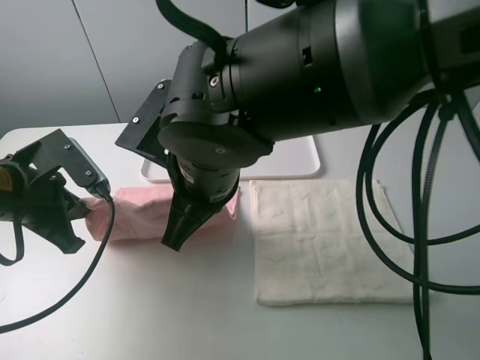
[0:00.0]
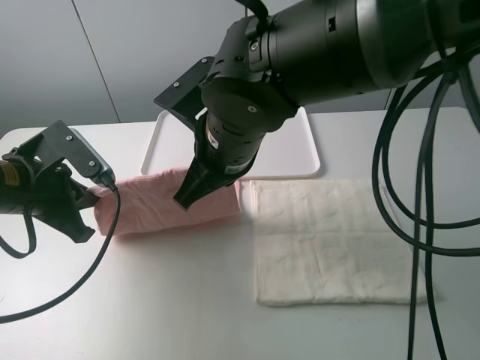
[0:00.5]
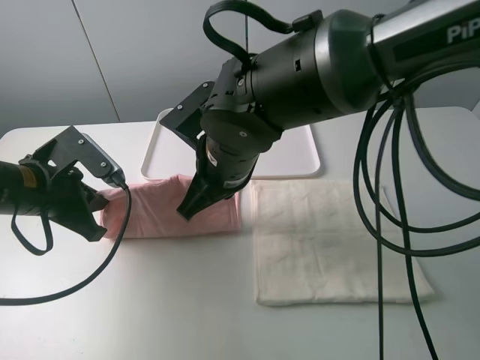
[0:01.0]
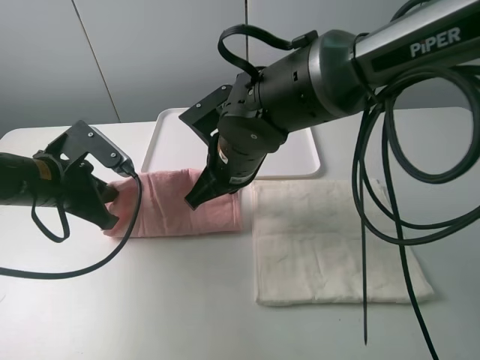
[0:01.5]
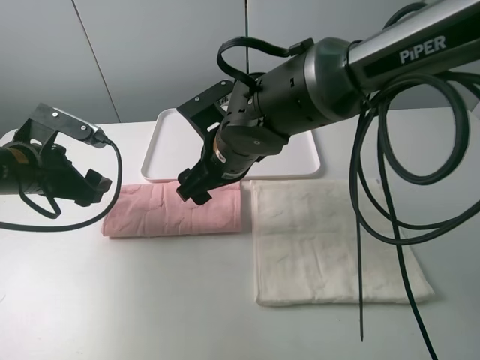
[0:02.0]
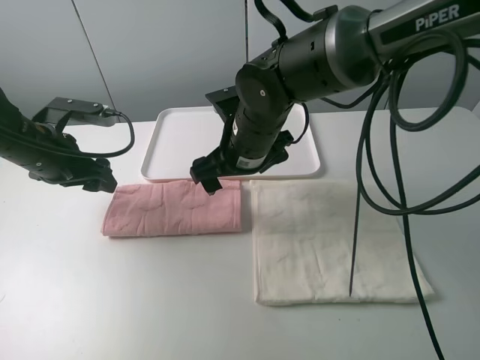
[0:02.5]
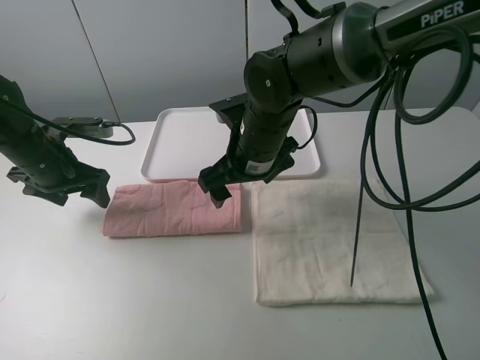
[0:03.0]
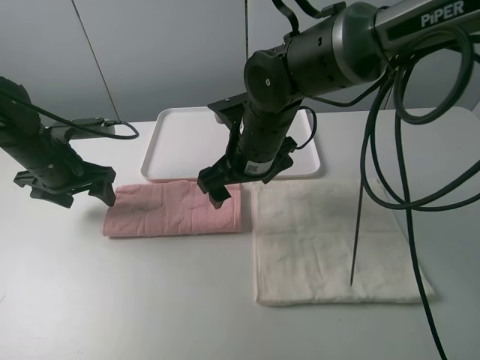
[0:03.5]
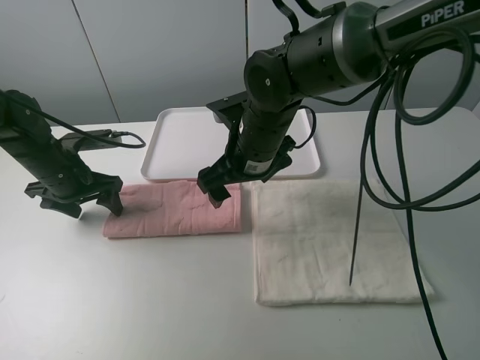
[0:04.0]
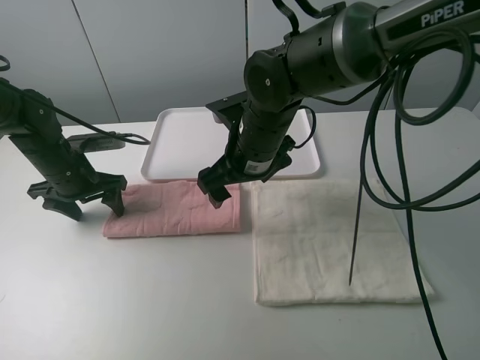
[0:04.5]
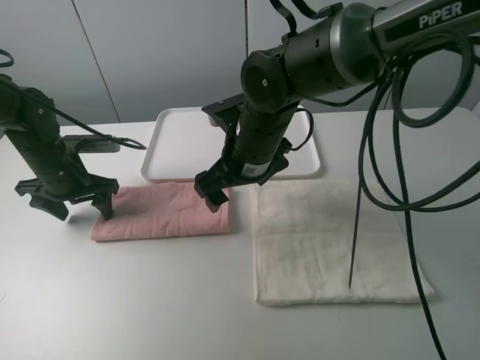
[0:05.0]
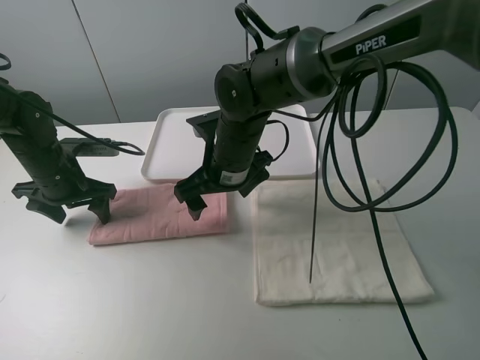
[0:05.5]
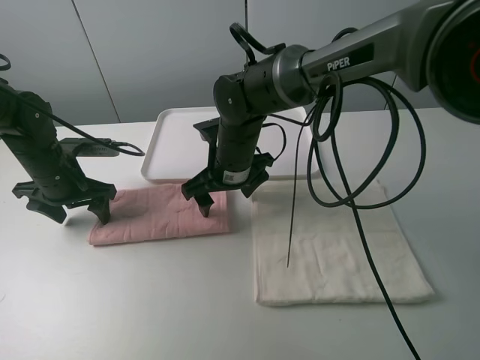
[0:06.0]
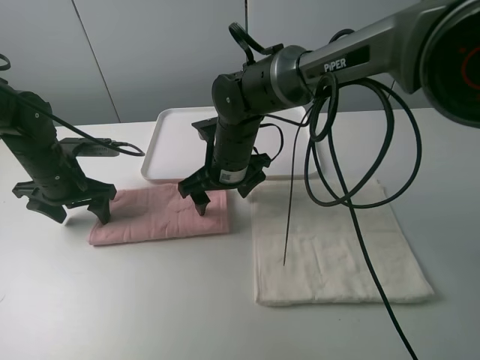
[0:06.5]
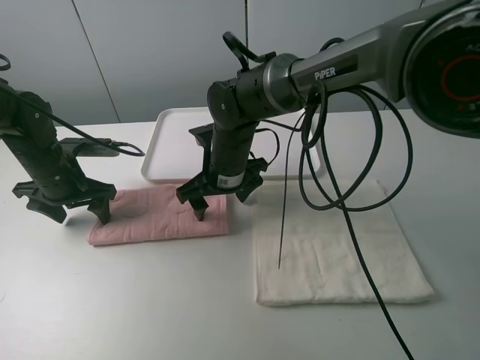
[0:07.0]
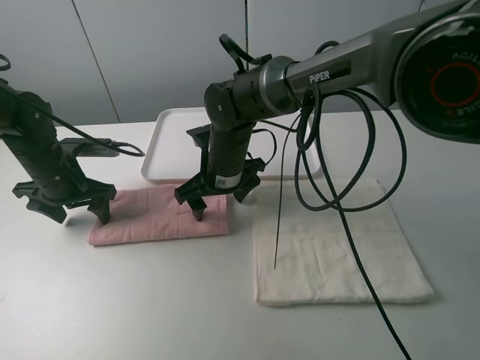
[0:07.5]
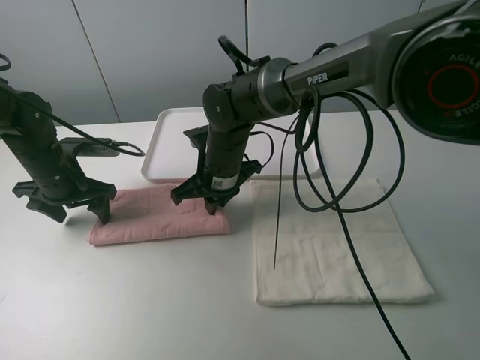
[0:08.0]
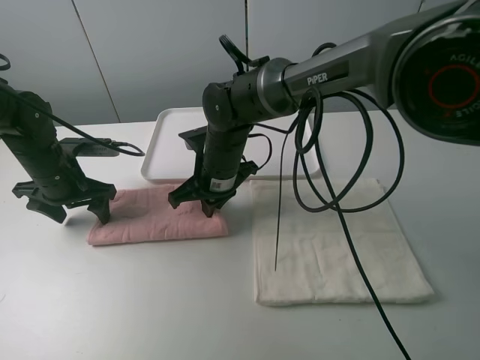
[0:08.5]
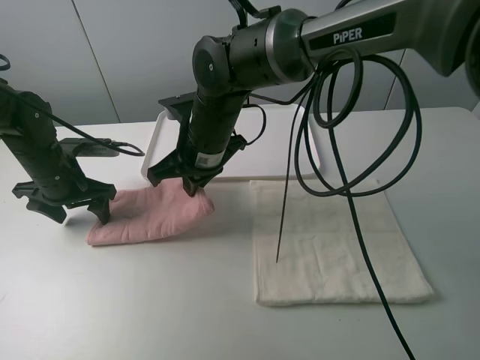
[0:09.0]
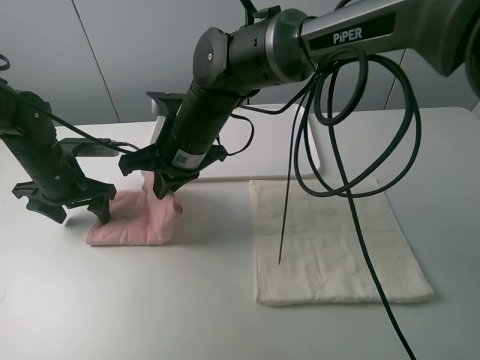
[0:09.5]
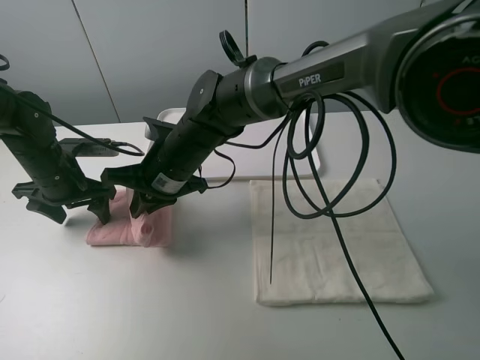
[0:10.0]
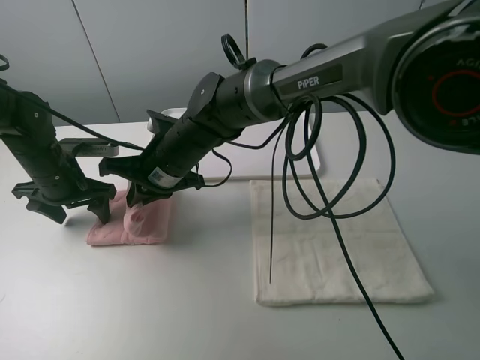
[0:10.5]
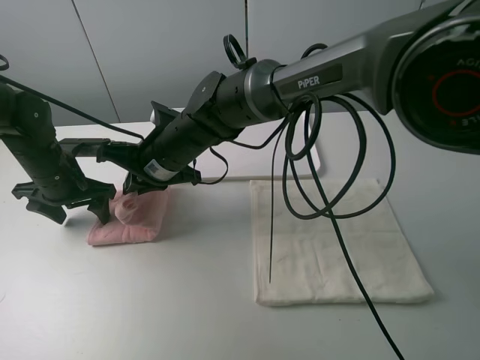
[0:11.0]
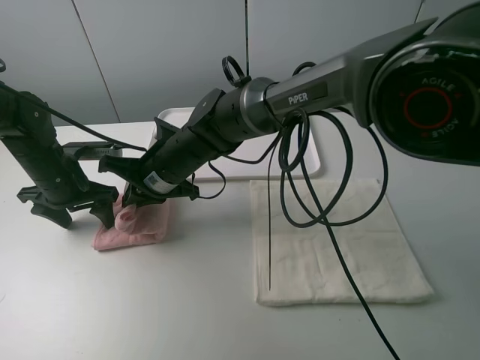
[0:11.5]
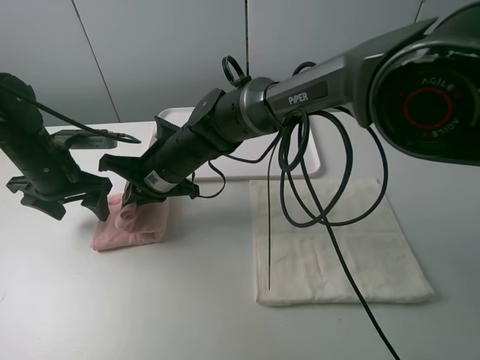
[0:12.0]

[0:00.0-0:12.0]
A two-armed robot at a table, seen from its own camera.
Task of the whole recording: fold one of the towels by two grippers and place it on the tray,then fold another towel by two grippers and place it on the folded towel.
Step, 0.0 to 2.0 s: Fold the pink towel upwards with the left gripper.
Step, 2.5 to 4.5 s: Press the pink towel with the left gripper.
Step, 5.0 to 8.0 s: Grasp the pink towel with the right gripper.
0.0 to 2.0 s: The right gripper goes about 10 cm forward and downward, and opens its fingers; the left gripper heads forward, covering approximately 5 cm, and opens up.
2.0 to 4.0 s: The left gripper moves forward, roughly 5 cm.
4.0 to 6.0 s: The right gripper moves approximately 5 cm.
6.0 to 8.0 s: The right gripper closes.
8.0 to 10.0 s: The right gripper is displaced to the left by about 5 cm.

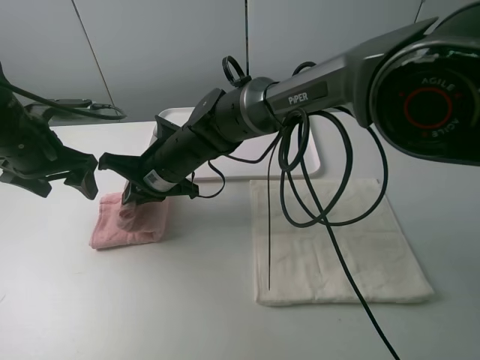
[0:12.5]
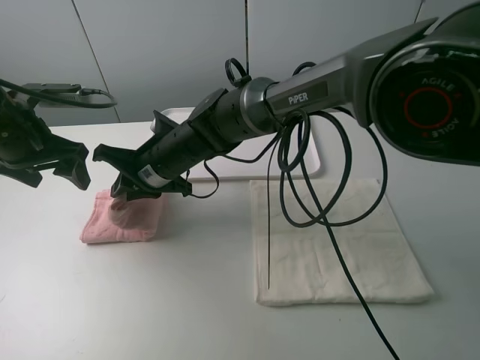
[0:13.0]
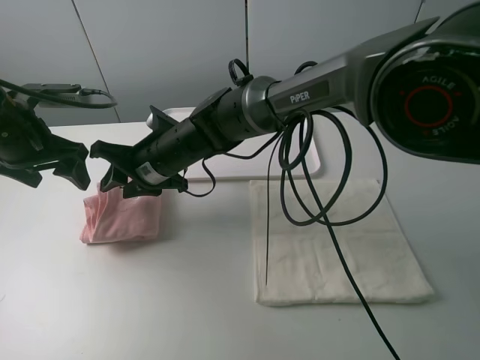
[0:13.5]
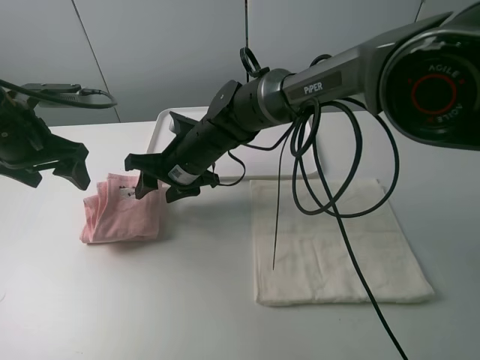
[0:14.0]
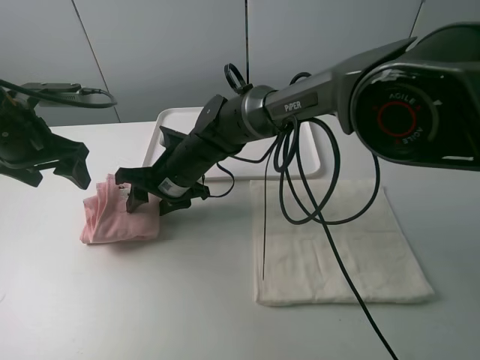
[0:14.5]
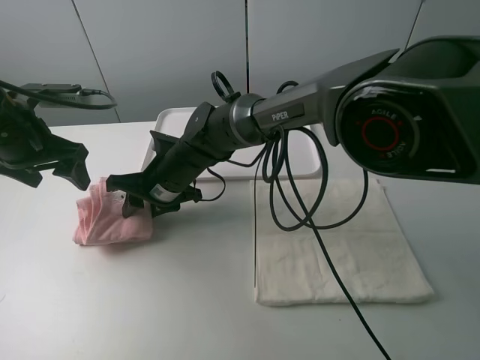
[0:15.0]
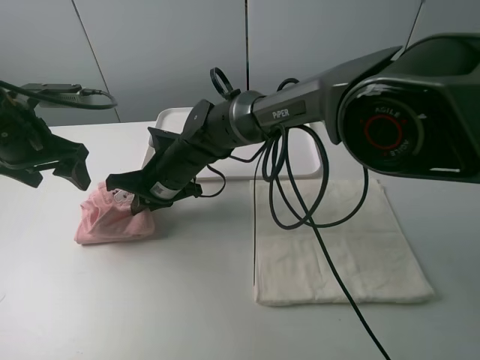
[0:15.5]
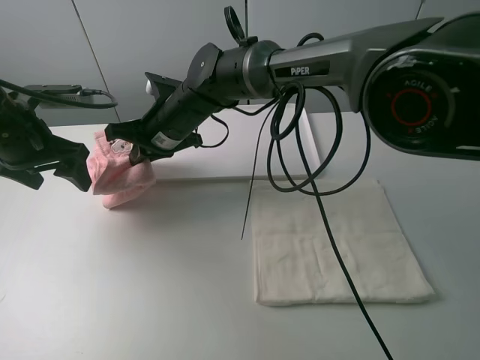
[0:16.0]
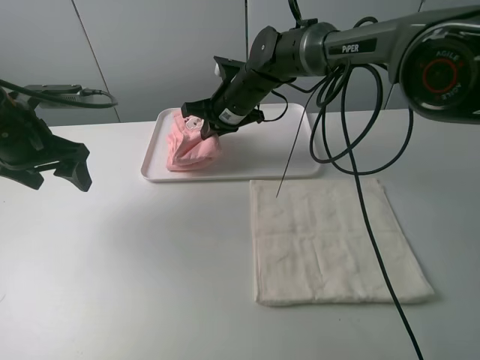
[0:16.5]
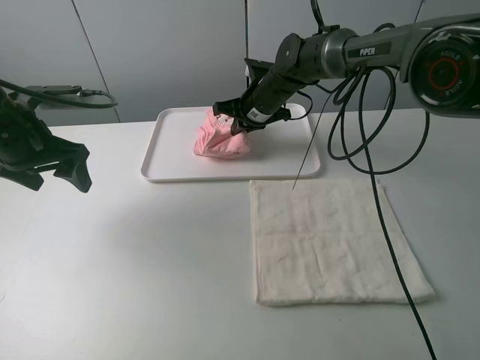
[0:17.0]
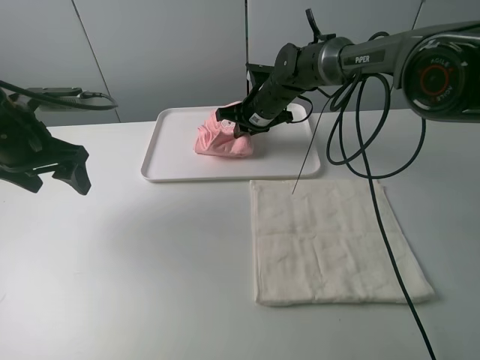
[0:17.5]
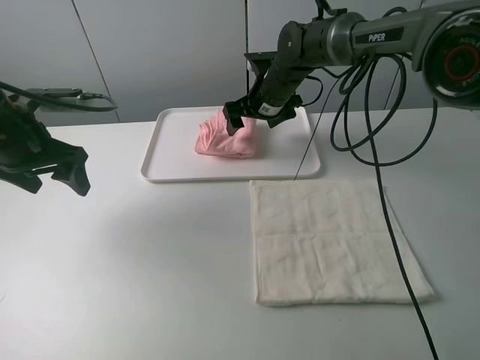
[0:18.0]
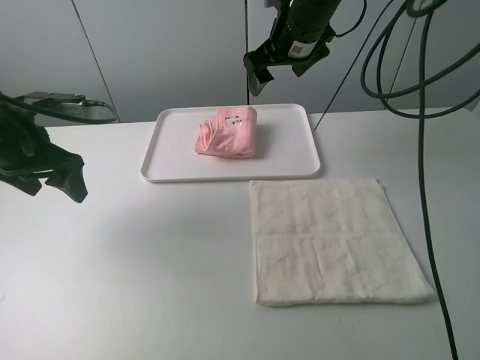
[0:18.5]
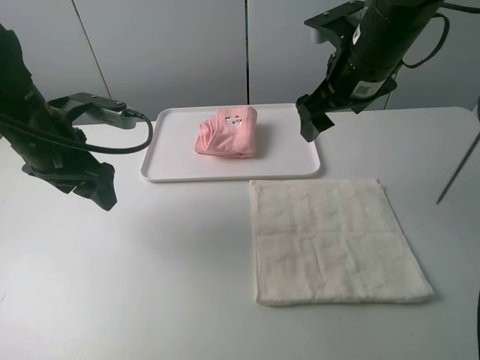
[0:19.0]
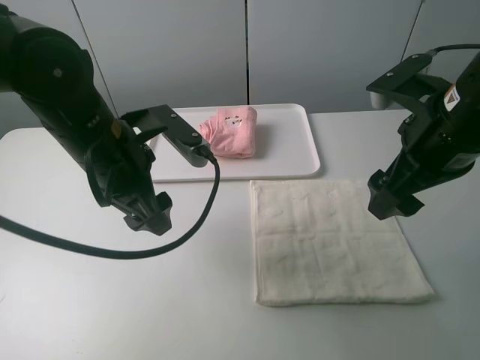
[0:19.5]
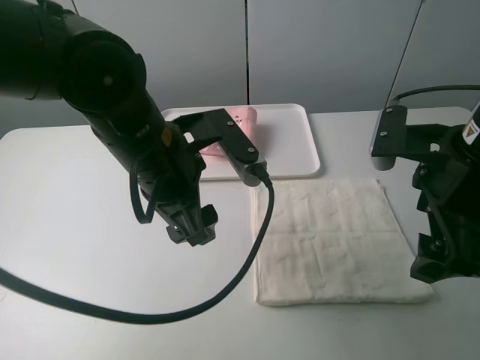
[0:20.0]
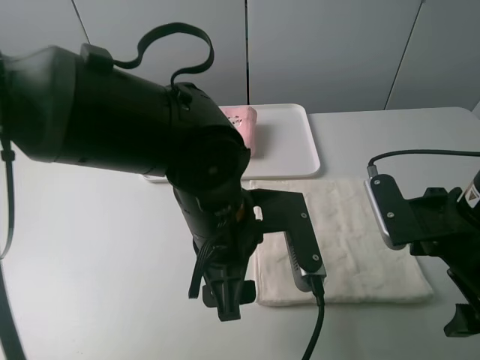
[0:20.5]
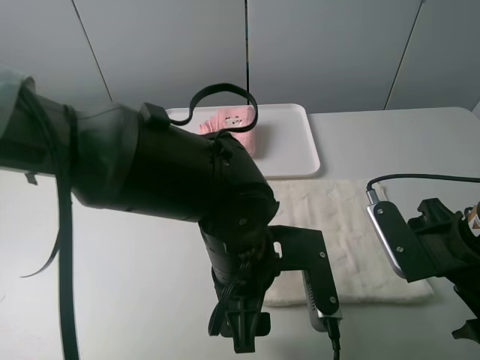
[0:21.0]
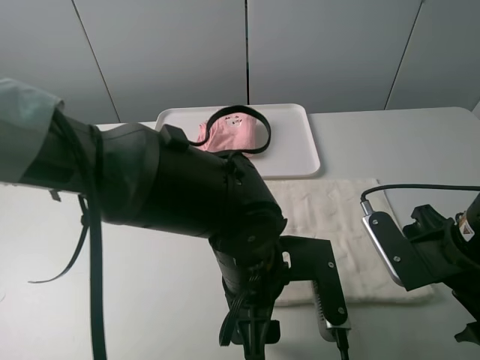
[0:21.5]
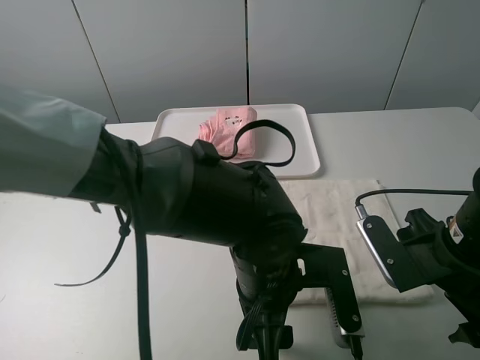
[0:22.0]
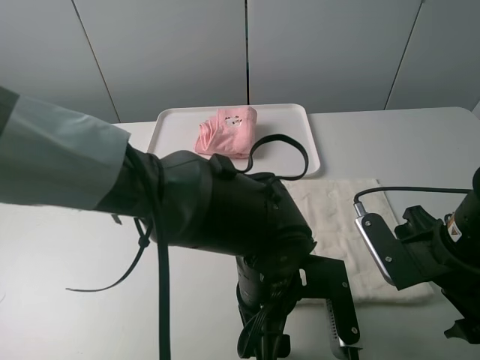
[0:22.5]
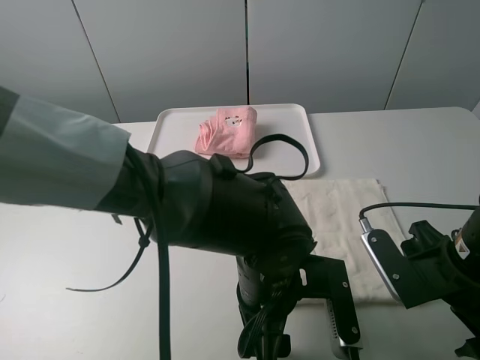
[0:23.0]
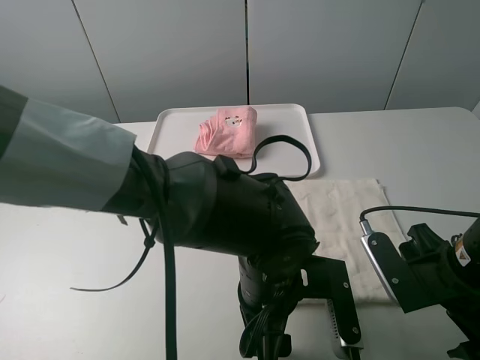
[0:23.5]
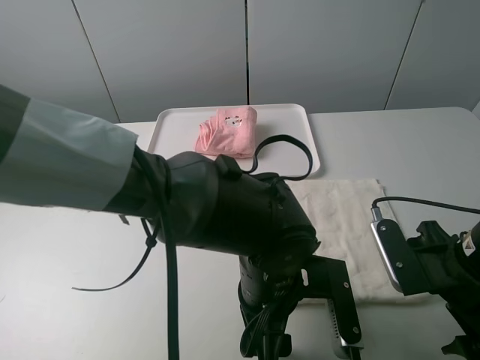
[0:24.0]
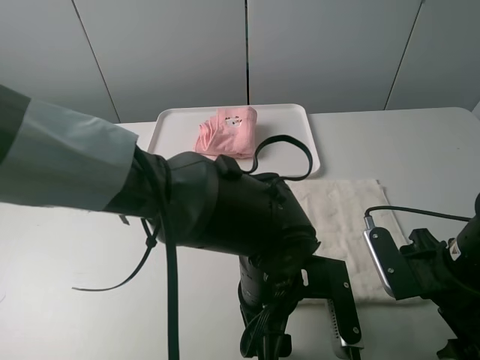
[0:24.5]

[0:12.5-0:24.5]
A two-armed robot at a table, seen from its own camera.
Task of the whole recording: fold one of the towels by two grippers and place it on the tray,then fold another towel by two grippers and place it on the folded towel.
Step, 14.0 to 15.0 s: Grasp the pink towel with the right gripper.
Step, 15.5 to 18.0 s: Move the pink towel to the plate with the right gripper.
12.5 to 14.5 s: The right gripper opens up.
14.5 to 16.5 s: The right gripper shifts about 15 cm forward, to the right and upward, and closes.
16.5 to 18.5 s: The right gripper goes about 15 cm upward and to the right, and opens its fingers.
18.5 to 20.5 s: The right gripper shifts some 30 cm backward and to the right, while the left gripper goes approximately 30 cm to the right and backward.
20.5 to 22.5 s: The left gripper travels downward by some 5 cm.
22.5 to 24.5 s: The grippers move only a little.

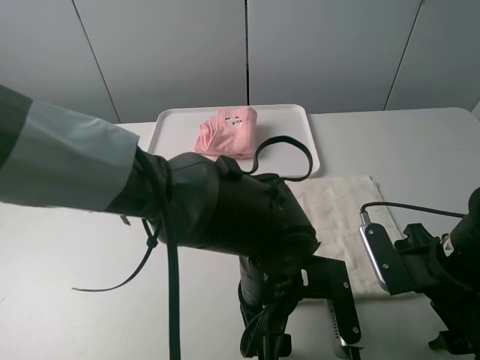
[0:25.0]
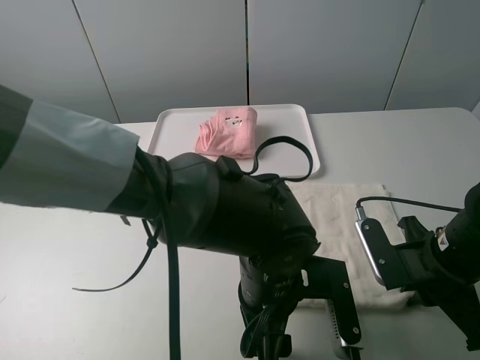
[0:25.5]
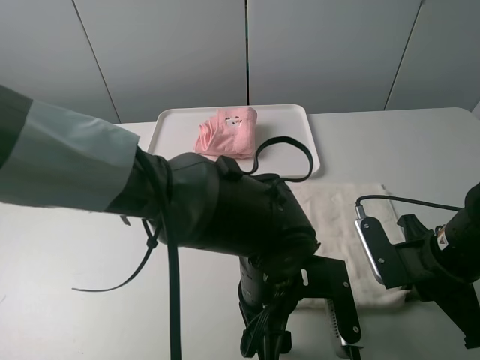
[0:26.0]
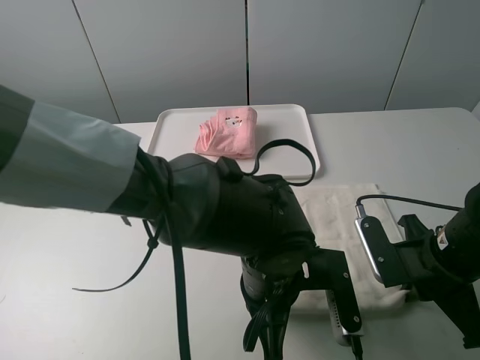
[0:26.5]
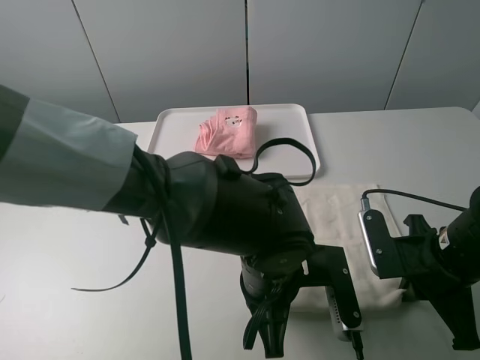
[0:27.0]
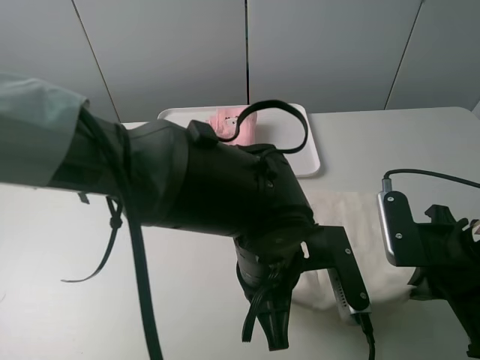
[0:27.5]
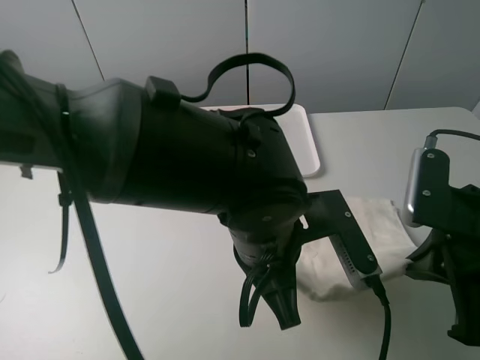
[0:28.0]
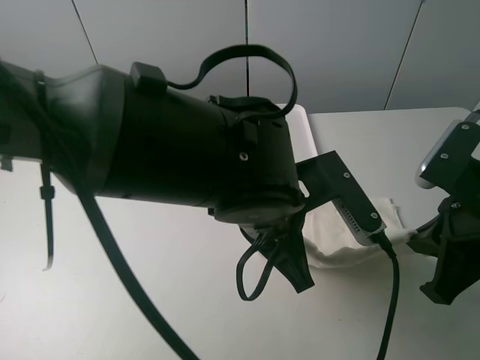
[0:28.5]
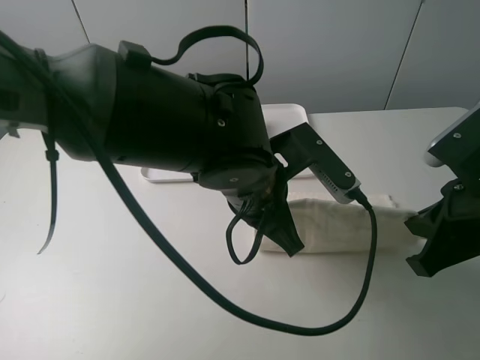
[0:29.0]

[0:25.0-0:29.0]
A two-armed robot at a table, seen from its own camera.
Task of the whole recording: fold one of the towels by two grippers and place it on the tray,then fold another towel by two grippers and place it on the folded towel.
25.0 to 27.0 s: The left gripper closes its fingers; the right gripper closes up.
27.0 to 29.0 s: The grippers both shift upward by approximately 10 cm.
